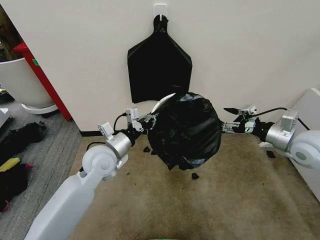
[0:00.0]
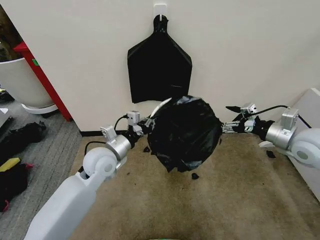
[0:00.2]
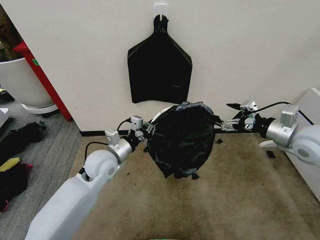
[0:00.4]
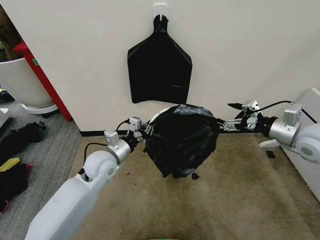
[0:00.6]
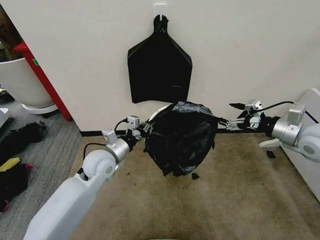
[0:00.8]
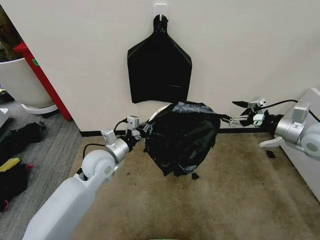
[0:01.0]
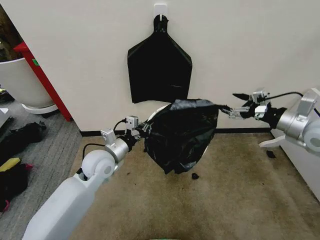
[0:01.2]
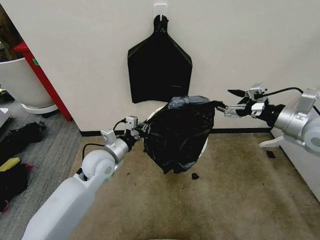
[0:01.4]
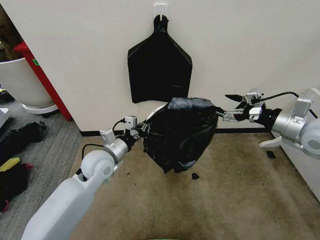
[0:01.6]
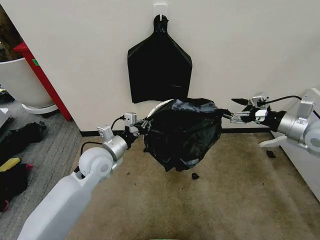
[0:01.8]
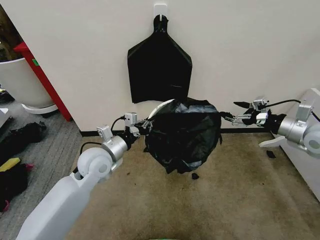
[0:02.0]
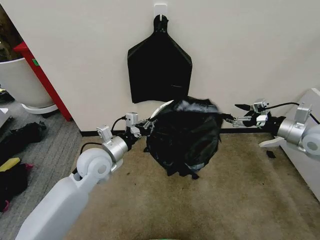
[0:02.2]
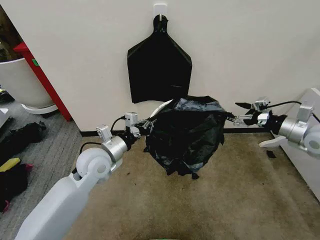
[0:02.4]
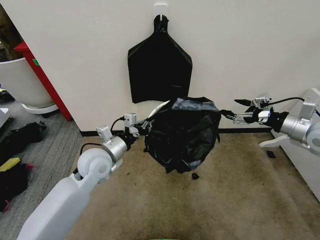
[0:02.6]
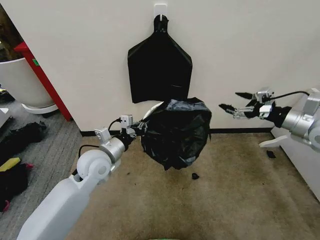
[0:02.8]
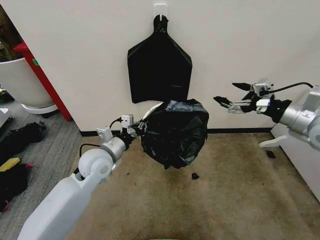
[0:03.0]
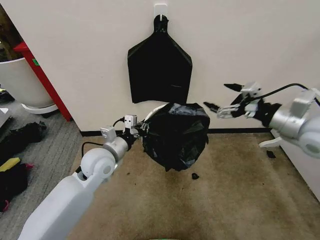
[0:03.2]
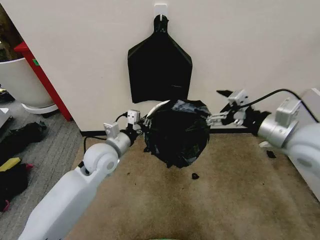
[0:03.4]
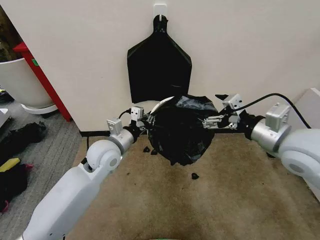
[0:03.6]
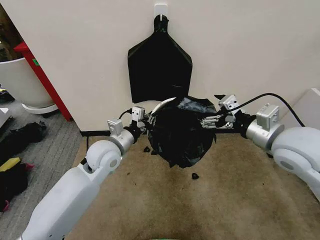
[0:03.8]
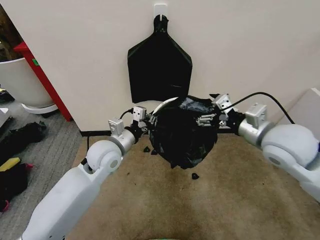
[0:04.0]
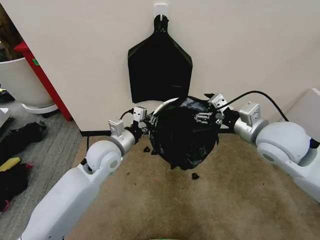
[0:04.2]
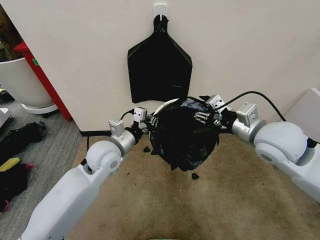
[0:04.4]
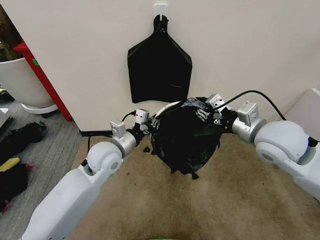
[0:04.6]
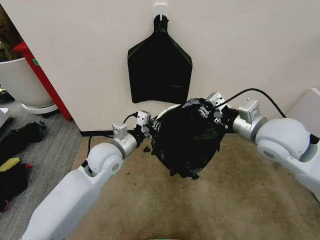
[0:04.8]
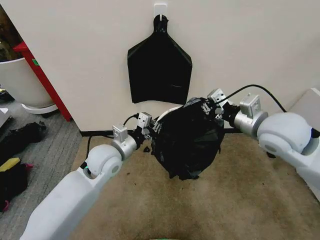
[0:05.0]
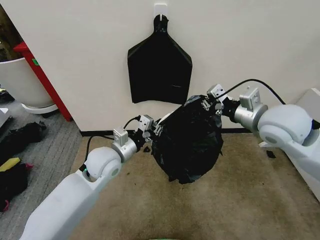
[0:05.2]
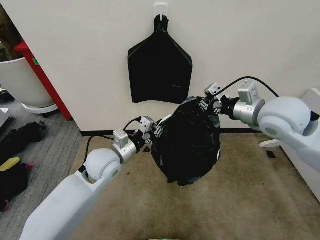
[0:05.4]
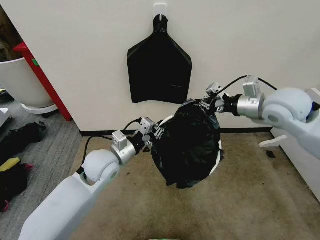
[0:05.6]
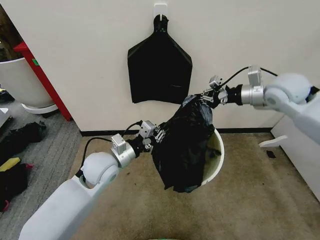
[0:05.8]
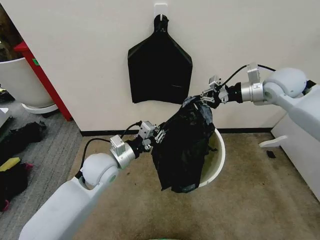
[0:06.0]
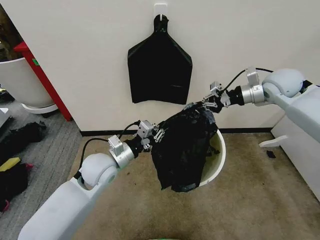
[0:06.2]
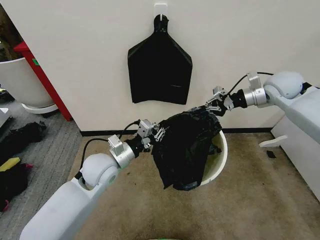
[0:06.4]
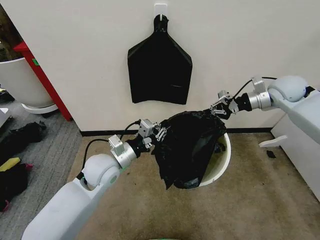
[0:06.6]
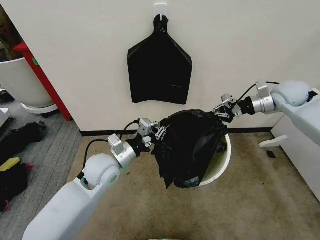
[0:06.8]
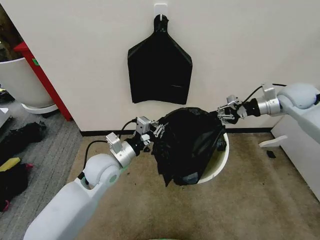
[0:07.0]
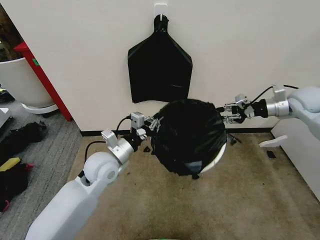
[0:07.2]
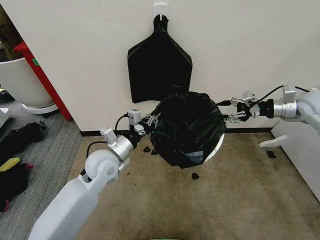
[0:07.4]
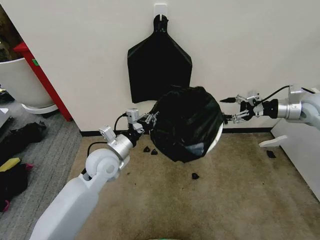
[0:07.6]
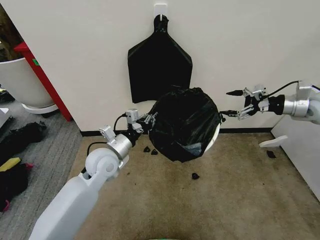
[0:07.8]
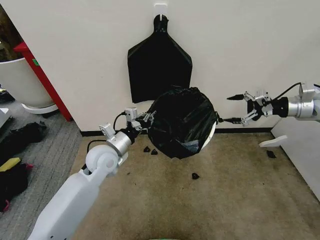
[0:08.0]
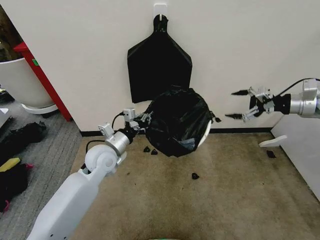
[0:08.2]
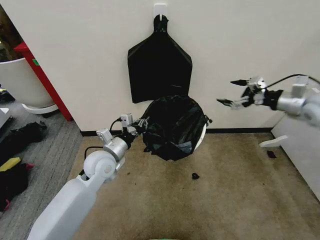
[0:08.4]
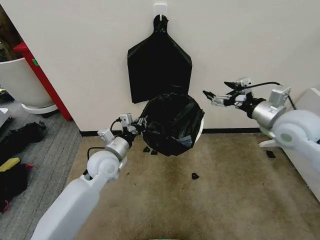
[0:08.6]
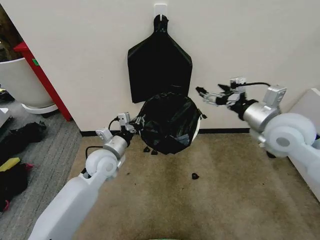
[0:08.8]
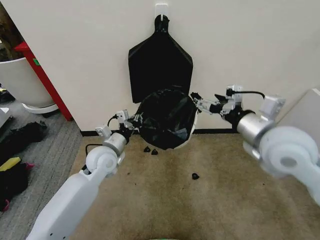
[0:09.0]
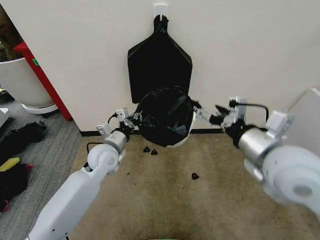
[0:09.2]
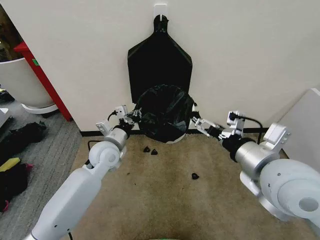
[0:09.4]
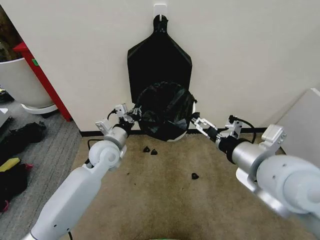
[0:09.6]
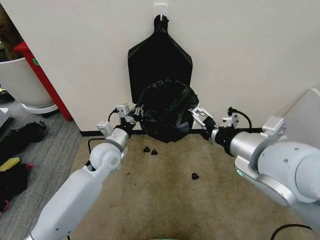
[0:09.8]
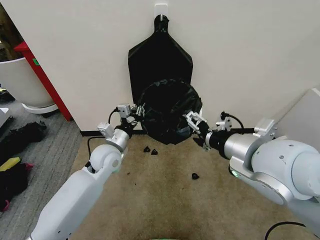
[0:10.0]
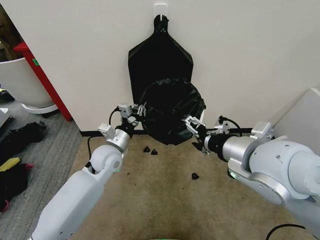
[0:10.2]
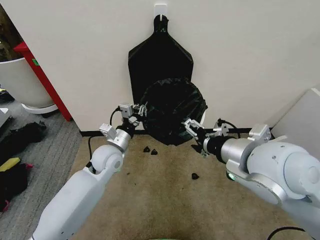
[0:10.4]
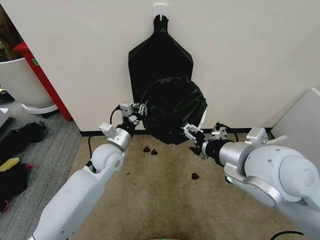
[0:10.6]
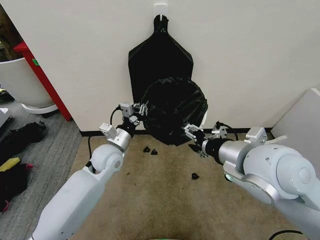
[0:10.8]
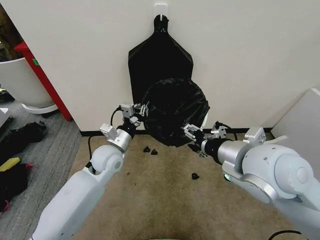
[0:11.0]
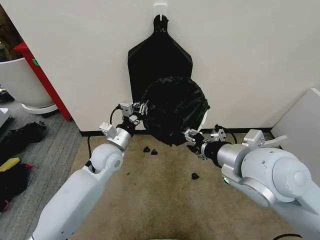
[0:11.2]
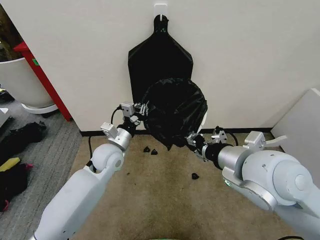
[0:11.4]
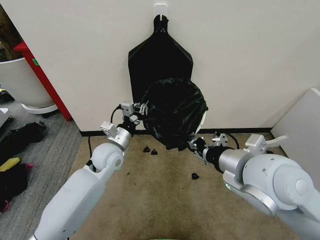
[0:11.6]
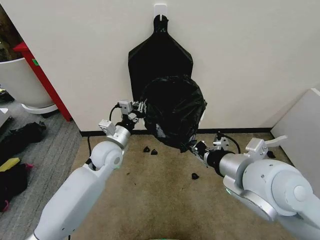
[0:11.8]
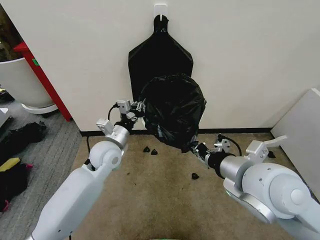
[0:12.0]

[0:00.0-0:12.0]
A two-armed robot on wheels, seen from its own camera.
Task of the whole recording: Place the garbage bag over the trash bin.
0:00.0 to 0:01.6: The right gripper heads upward, covering roughly 5 cm.
0:03.0 to 0:04.4: The right gripper is displaced to the left by roughly 15 cm, and closes.
0:04.4 to 0:06.0: The right gripper moves forward and to the right, some 15 cm, and closes.
0:06.0 to 0:07.6: The right gripper moves to the right and downward, about 15 cm, and opens.
0:07.6 to 0:09.0: The right gripper moves to the left and backward, some 30 cm.
0:09.0 to 0:10.4: The right gripper moves to the left, roughly 5 cm.
0:10.4 to 0:12.0: The right gripper closes.

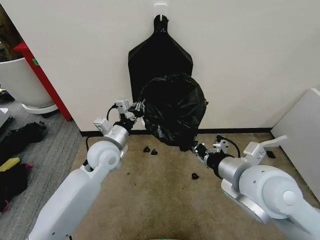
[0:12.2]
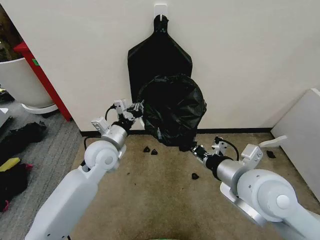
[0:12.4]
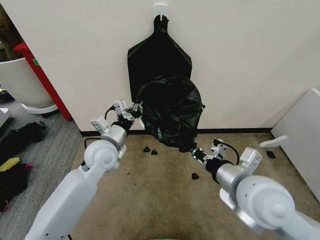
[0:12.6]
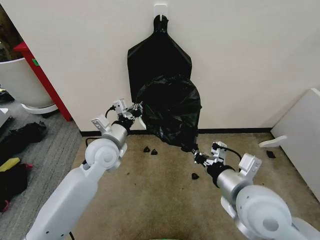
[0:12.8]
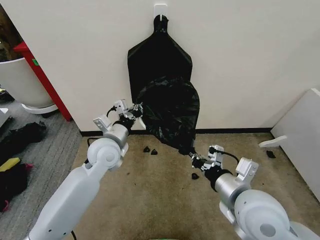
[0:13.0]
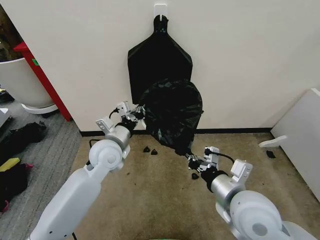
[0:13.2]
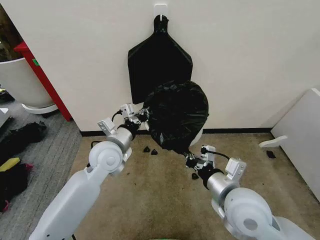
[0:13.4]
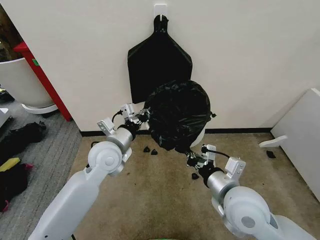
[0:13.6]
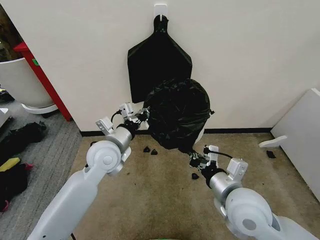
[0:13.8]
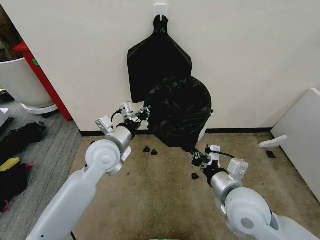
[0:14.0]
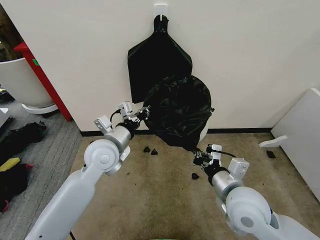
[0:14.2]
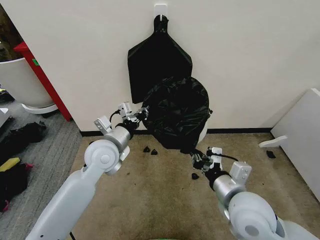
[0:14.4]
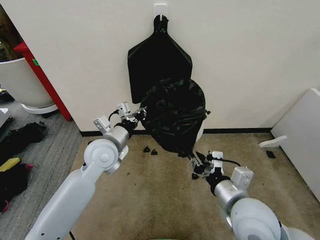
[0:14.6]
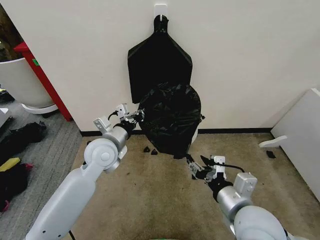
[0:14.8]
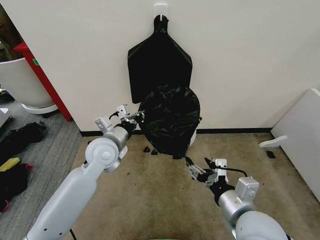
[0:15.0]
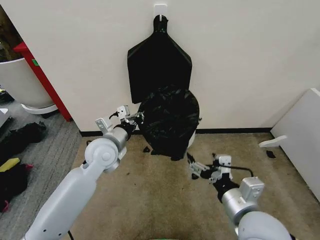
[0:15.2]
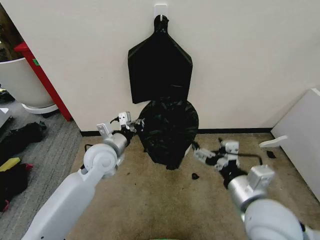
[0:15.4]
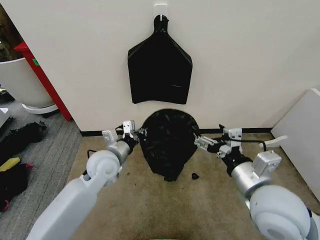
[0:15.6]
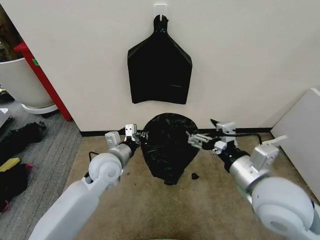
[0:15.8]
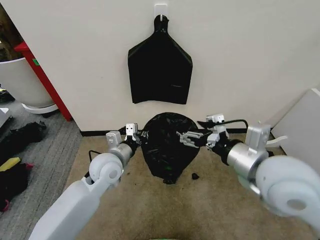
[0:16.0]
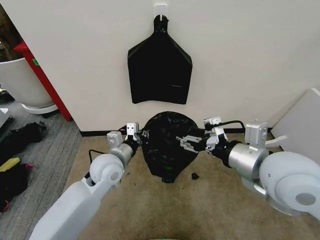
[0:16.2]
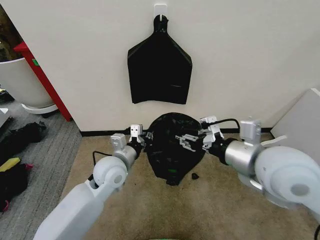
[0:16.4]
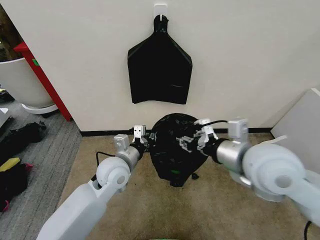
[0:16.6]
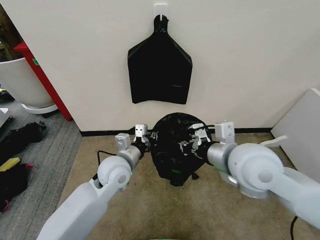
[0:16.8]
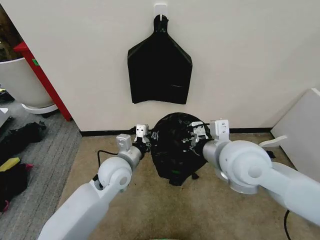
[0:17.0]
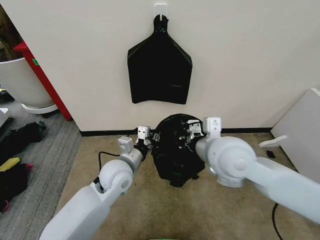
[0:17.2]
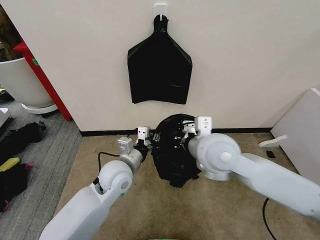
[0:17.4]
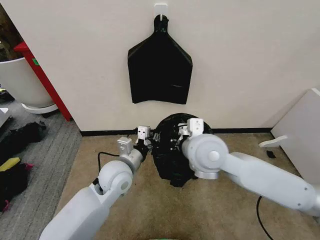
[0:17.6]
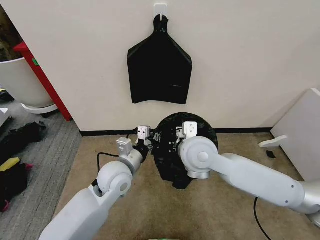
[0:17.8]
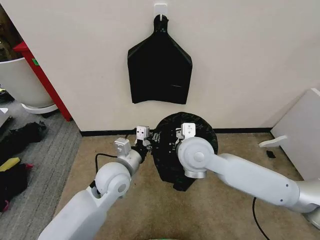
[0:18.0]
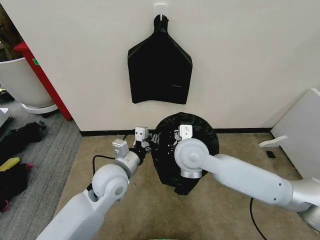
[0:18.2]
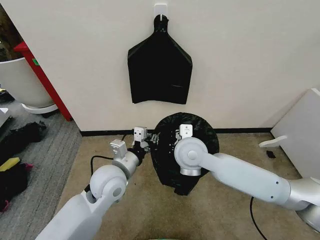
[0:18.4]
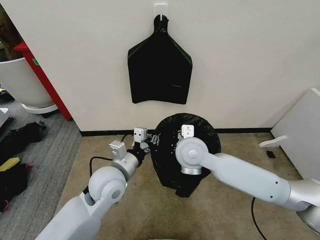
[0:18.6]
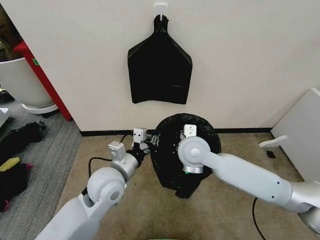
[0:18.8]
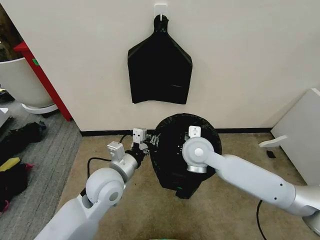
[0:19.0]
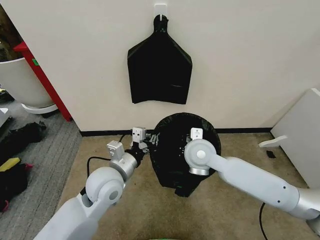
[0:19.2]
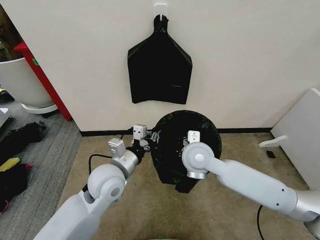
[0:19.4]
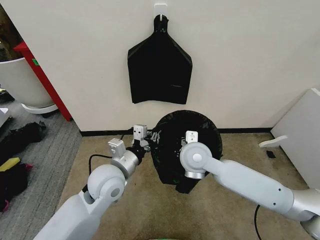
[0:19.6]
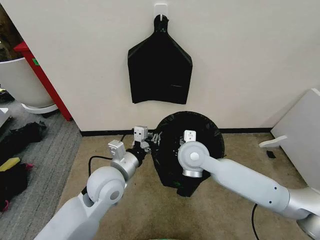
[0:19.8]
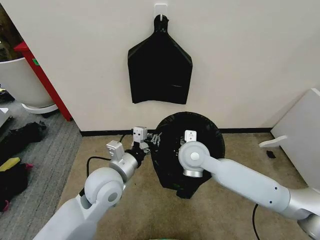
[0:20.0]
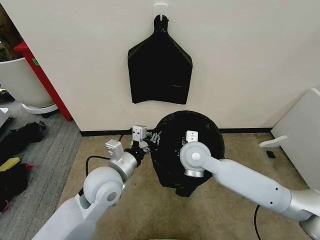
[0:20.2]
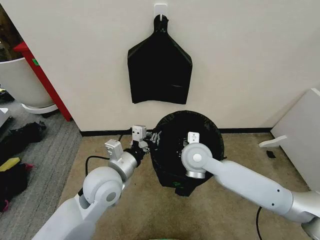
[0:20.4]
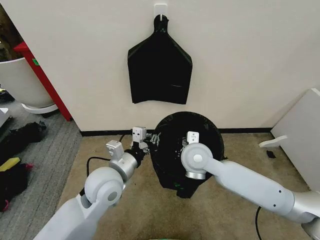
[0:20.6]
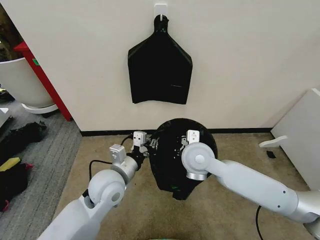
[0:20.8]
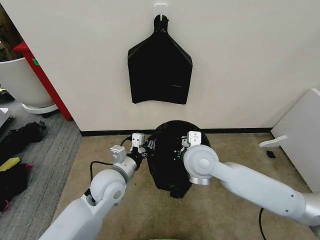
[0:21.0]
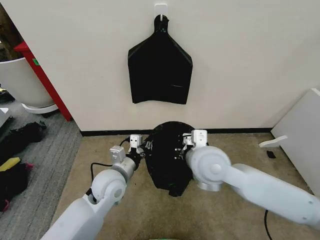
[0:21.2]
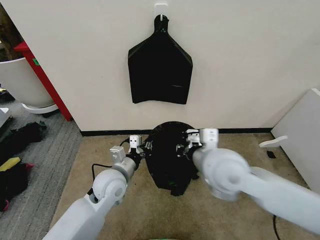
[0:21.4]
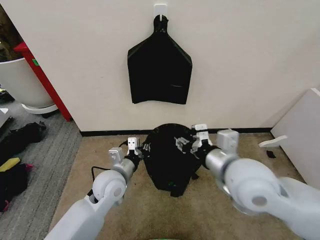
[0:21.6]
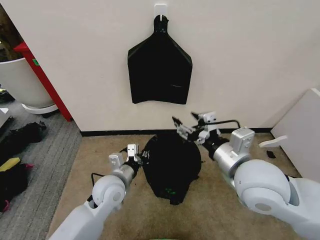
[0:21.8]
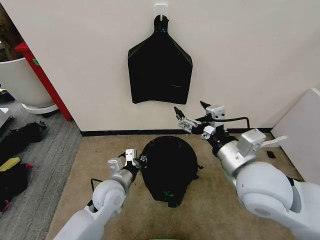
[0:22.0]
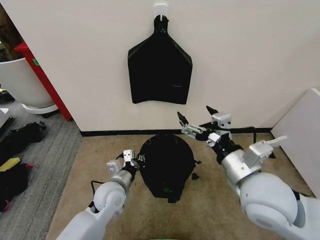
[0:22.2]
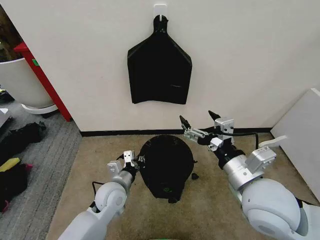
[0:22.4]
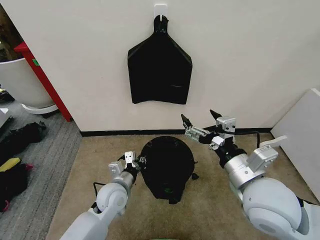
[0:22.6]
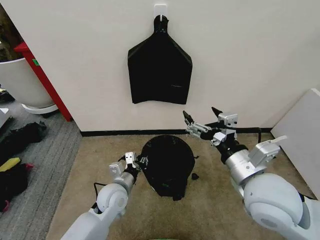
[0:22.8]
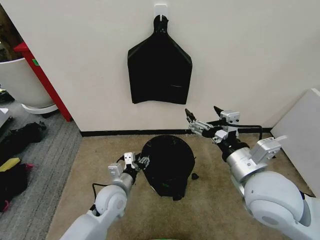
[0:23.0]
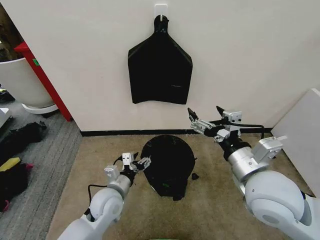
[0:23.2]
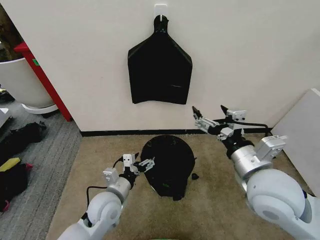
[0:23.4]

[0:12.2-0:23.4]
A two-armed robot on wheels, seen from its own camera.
Task of the whole recording: Place the garbage bag over the trash bin.
0:12.2 to 0:13.8: The right gripper heads downward, covering roughly 10 cm.
0:13.8 to 0:15.4: The right gripper shifts by approximately 5 cm, and opens.
0:15.4 to 0:17.0: The right gripper moves forward and upward, roughly 15 cm, and closes up, while the left gripper changes place by about 5 cm.
0:17.0 to 0:18.6: The right gripper heads to the left, forward and downward, covering some 15 cm.
0:18.6 to 0:20.2: The grippers move only a little.
0:20.2 to 0:21.8: The left gripper goes some 10 cm downward; the right gripper moves backward, to the right and upward, some 20 cm, and opens its fingers.
0:21.8 to 0:23.4: The left gripper ends up roughly 5 cm from where it was, and opens up.
